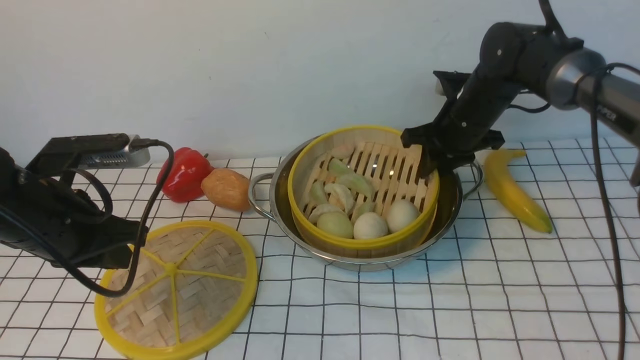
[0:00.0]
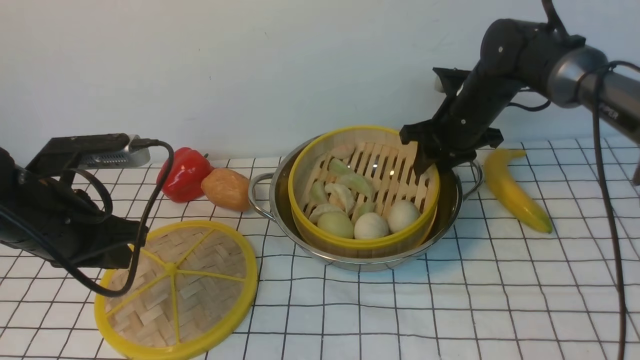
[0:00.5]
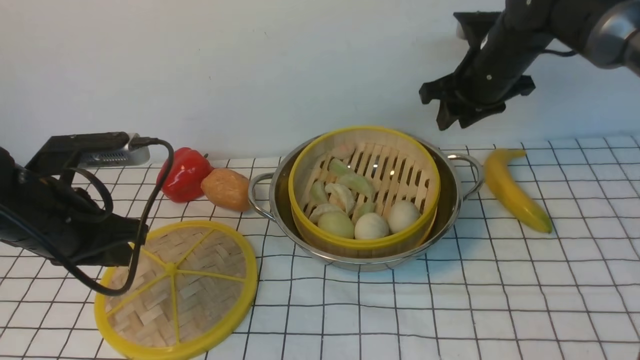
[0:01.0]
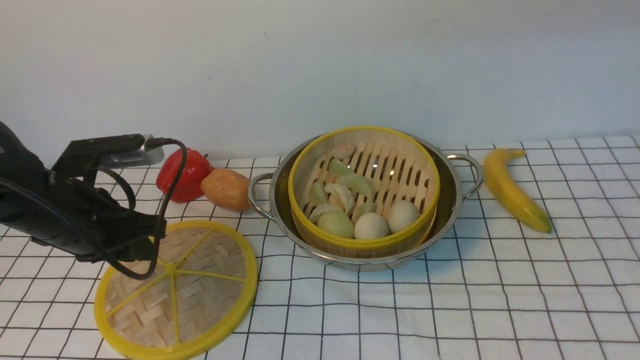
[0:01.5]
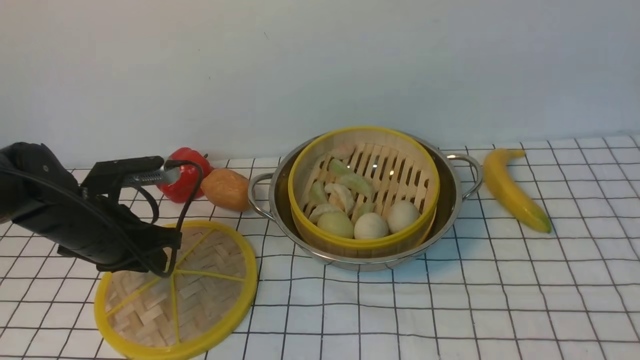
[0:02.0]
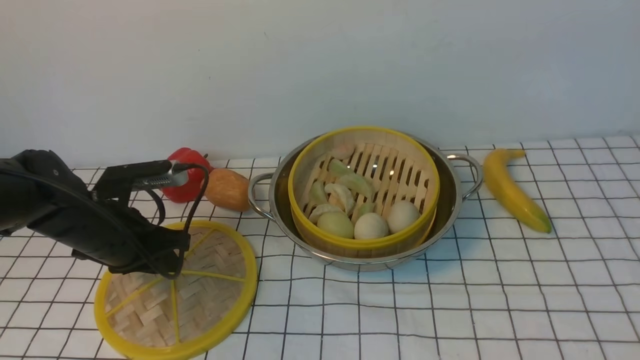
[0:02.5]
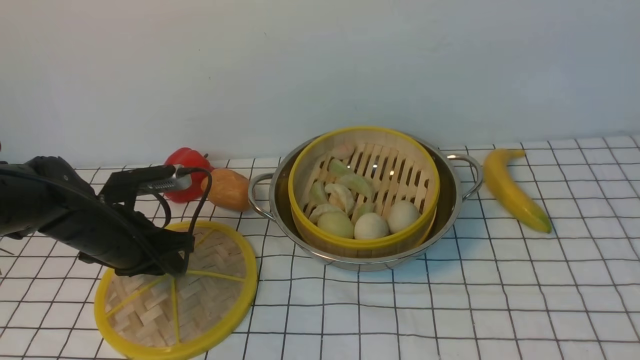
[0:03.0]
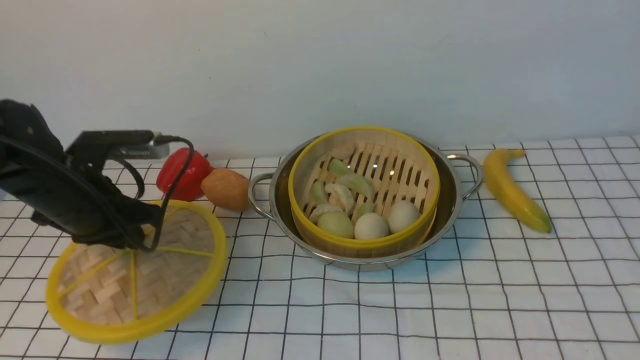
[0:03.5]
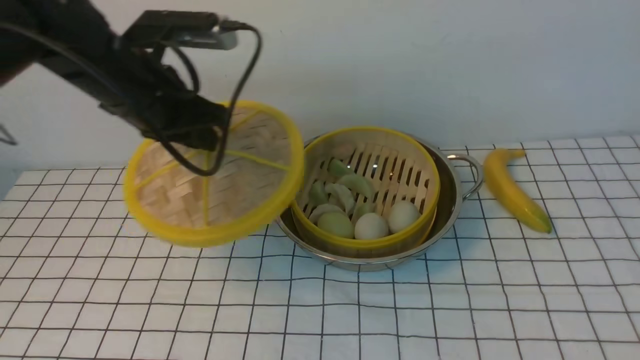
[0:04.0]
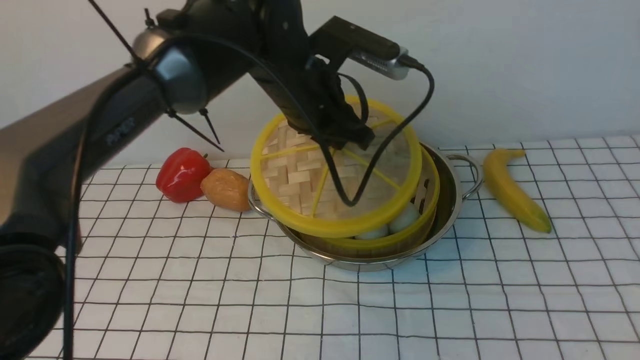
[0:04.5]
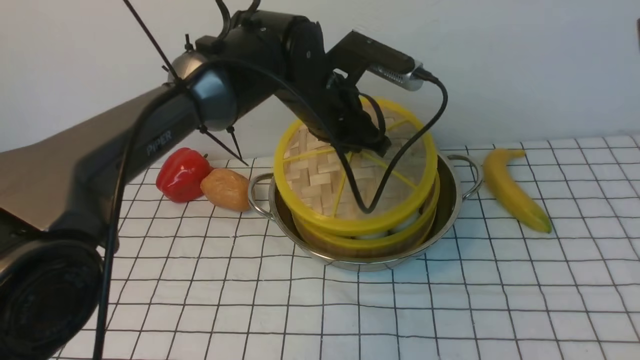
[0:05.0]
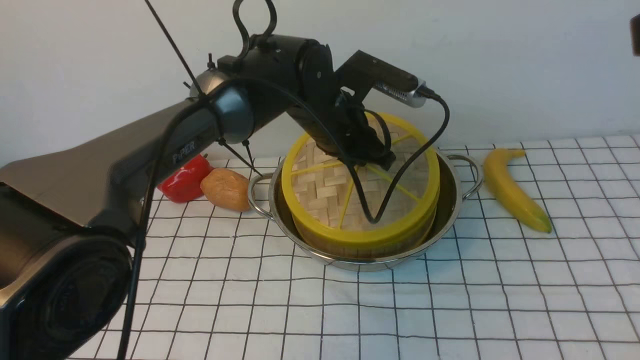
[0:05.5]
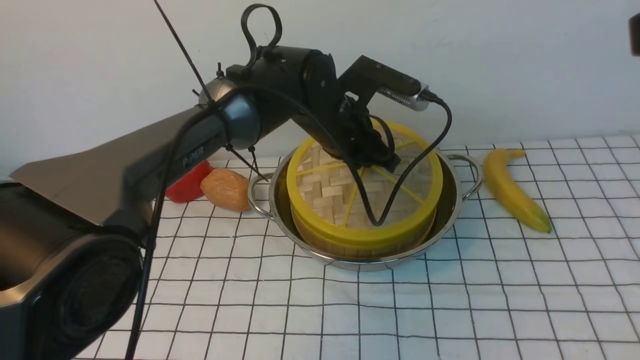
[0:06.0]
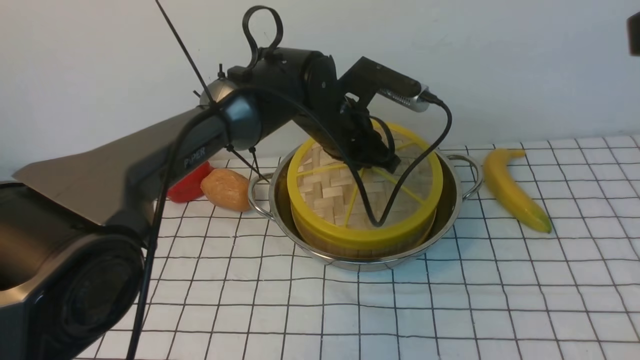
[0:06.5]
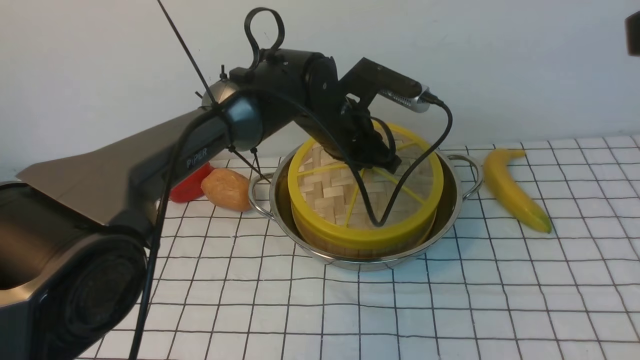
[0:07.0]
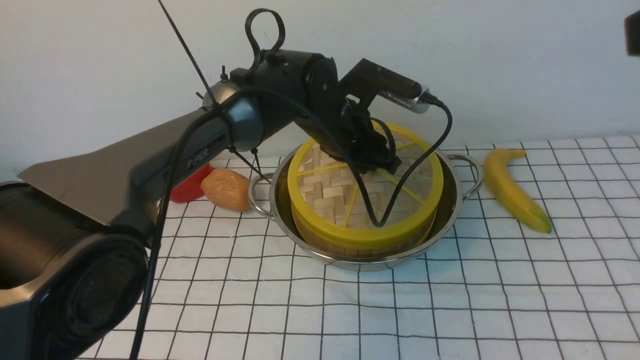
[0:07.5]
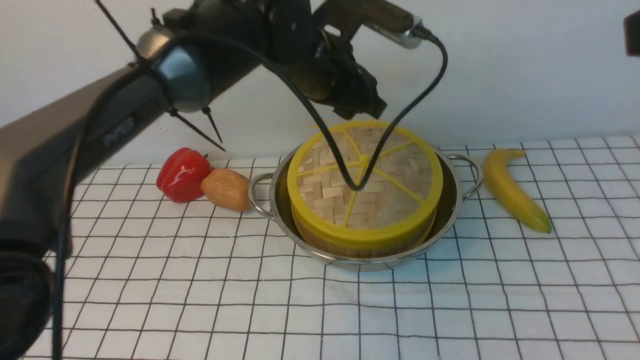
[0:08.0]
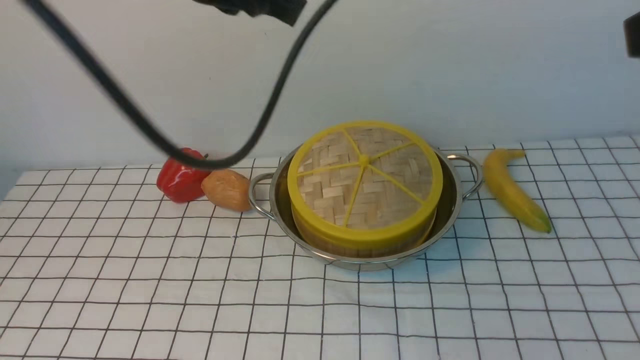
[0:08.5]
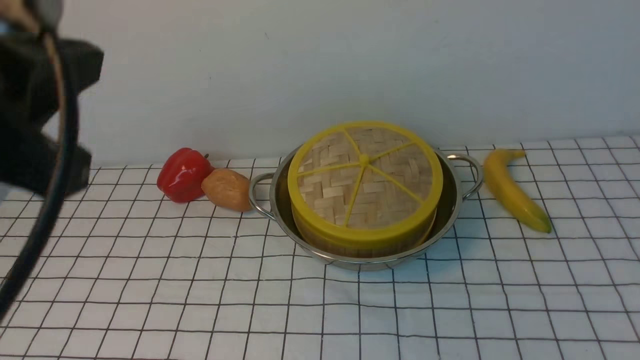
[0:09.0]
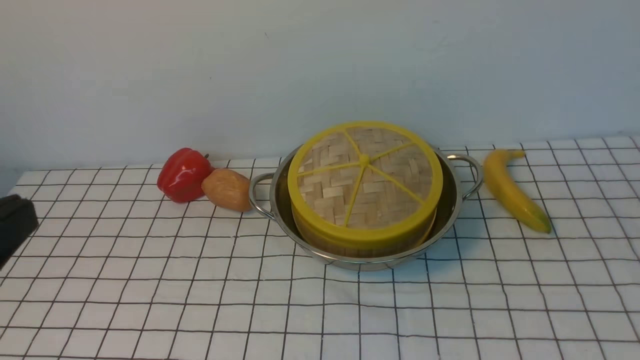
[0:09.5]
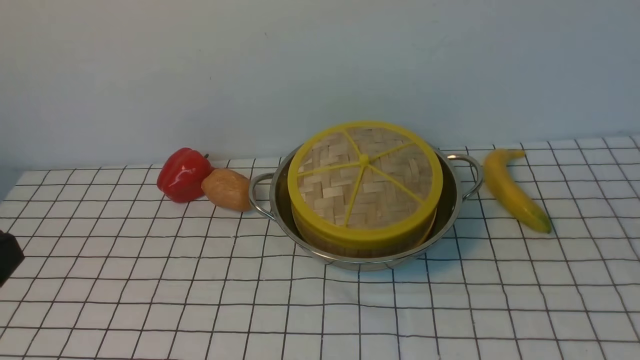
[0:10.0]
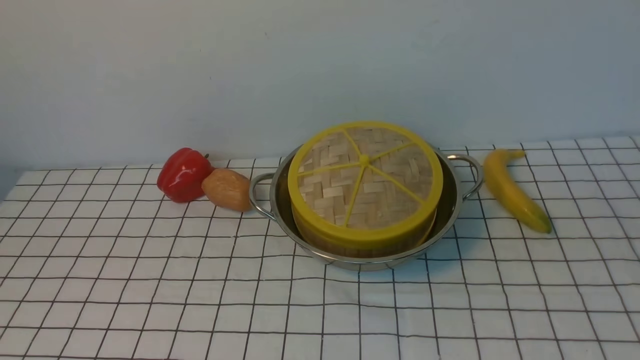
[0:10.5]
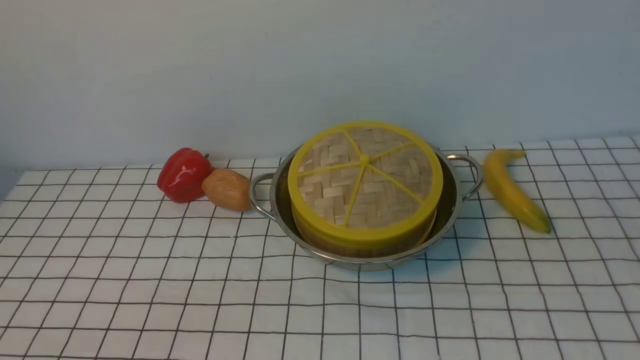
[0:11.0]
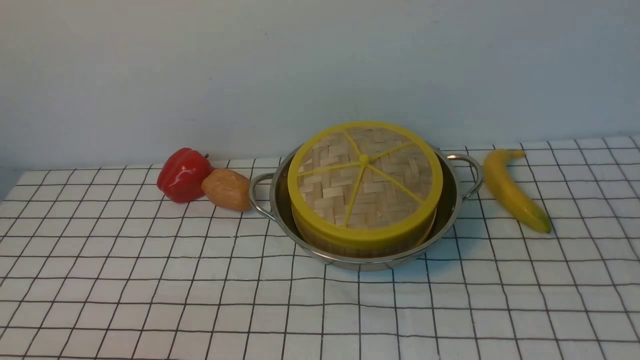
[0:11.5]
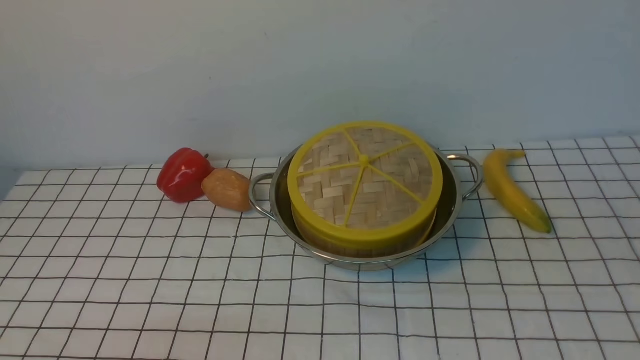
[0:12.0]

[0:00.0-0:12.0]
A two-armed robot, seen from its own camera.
Task of the whole recording: place the steamer in the pot on the white tablecloth, and put the lid on the steamer.
Step, 0:01.0 to 0:03.0: use the left arm to lift the lid of the steamer.
Step, 0:03.5 to 0:07.5: use the left arm to place the steamer lid on the steamer.
0:00.0 to 0:02.0: The left gripper moves downward, some 5 cm. Meanwhile the right gripper heads upward and backward, covering approximately 40 cm, and closes its fingers.
0:02.0 to 0:04.0: The left gripper shifts some 15 cm upward, to the right and forward.
0:04.0 to 0:06.0: The left gripper shifts approximately 20 cm to the right and downward.
0:06.0 to 0:08.0: The left gripper heads upward, covering roughly 10 cm, and opens.
0:08.0 to 0:10.0: The right gripper travels downward and backward by roughly 15 cm; the left gripper goes roughly 40 cm backward and to the left, and closes up.

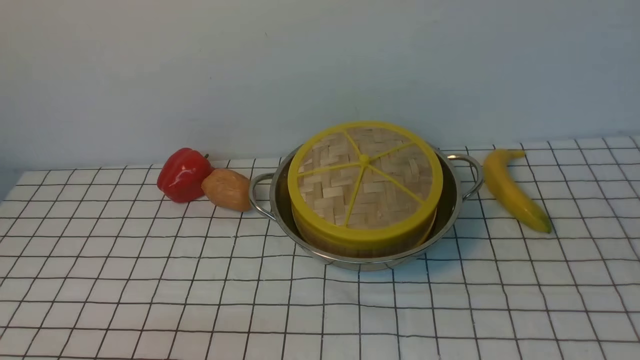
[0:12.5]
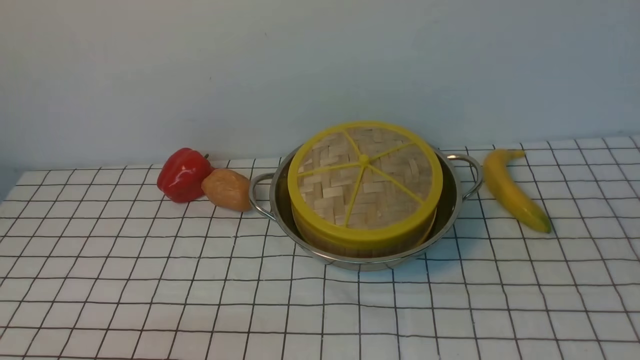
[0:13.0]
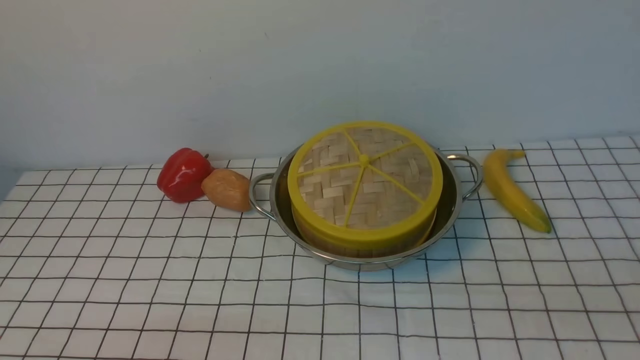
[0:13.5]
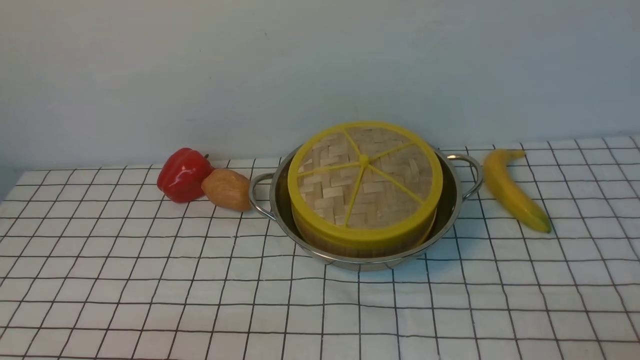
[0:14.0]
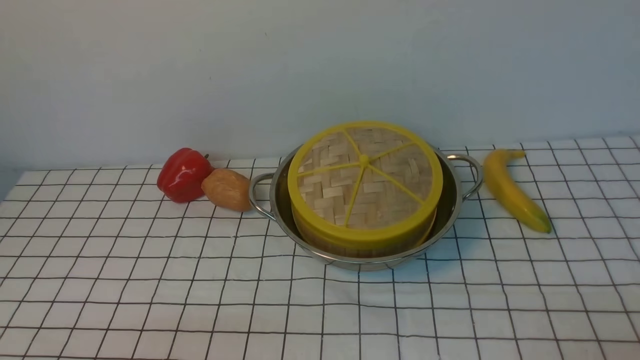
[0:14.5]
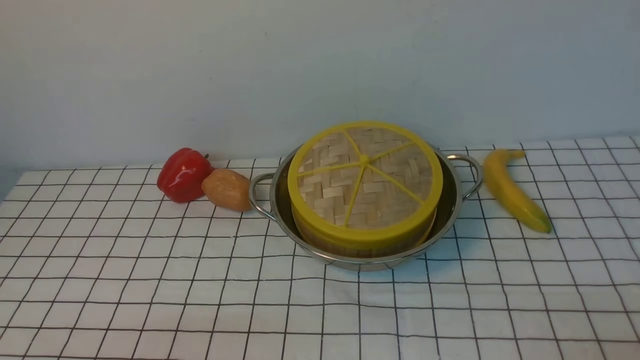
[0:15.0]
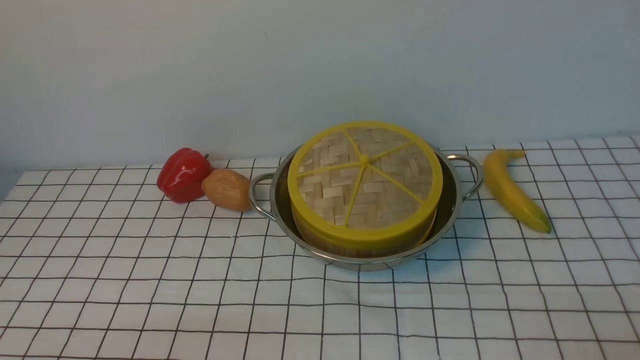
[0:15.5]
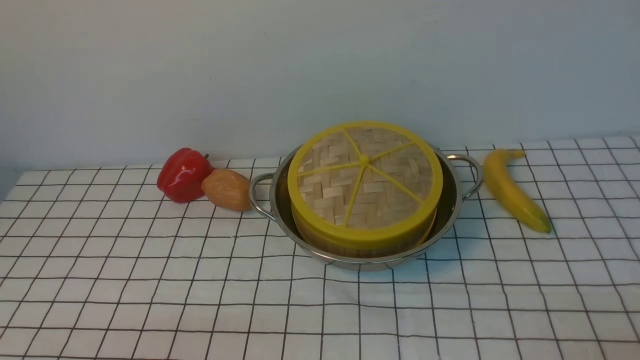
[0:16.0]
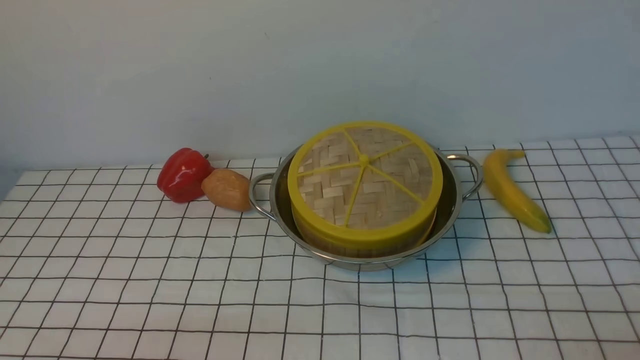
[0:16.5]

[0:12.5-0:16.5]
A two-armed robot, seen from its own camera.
Task of the whole recording: place the steamer in the pot on the white tablecloth, and put the lid on the steamer.
0:14.5 to 0:16.5: Neither gripper changes place.

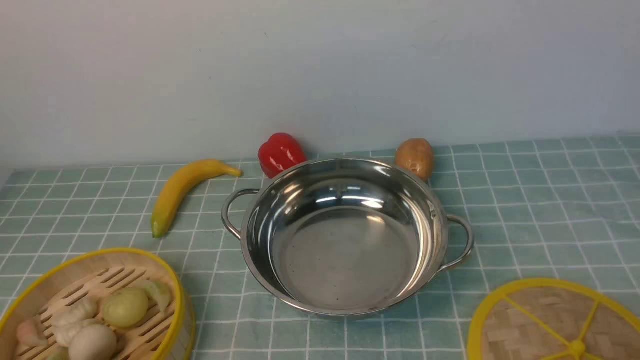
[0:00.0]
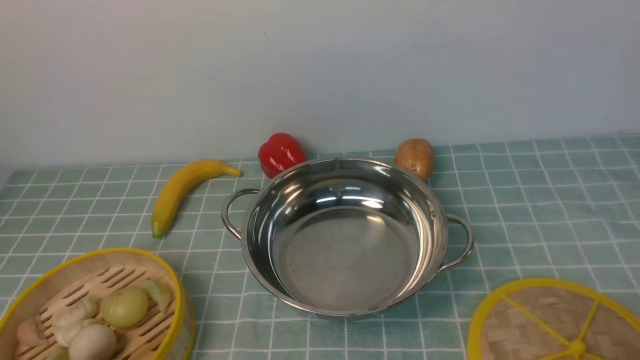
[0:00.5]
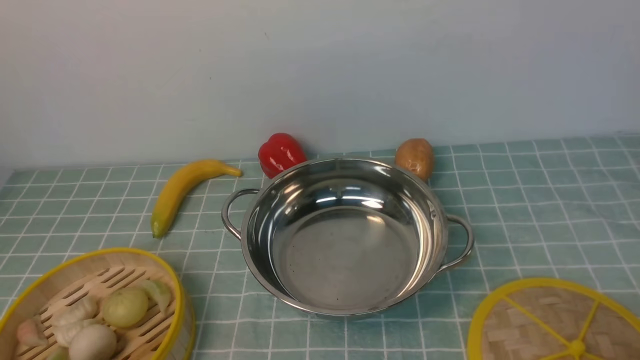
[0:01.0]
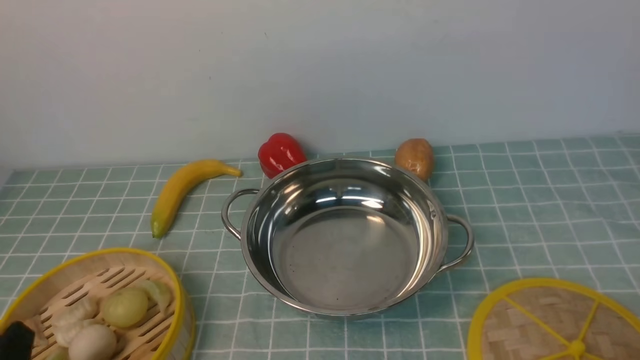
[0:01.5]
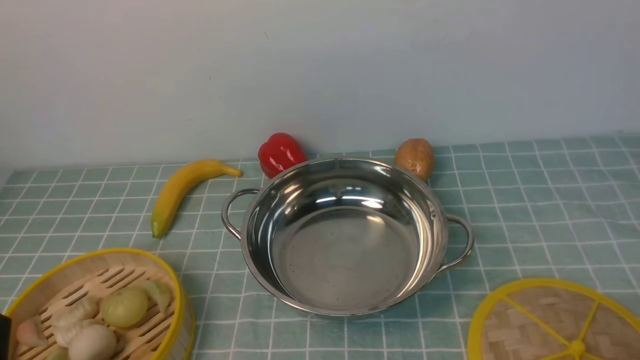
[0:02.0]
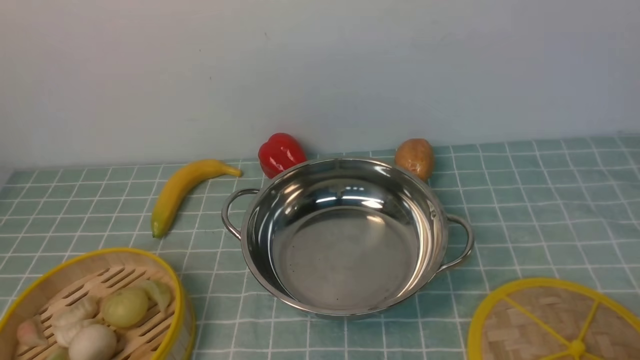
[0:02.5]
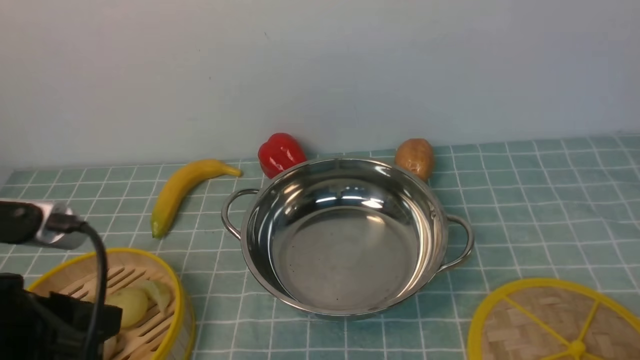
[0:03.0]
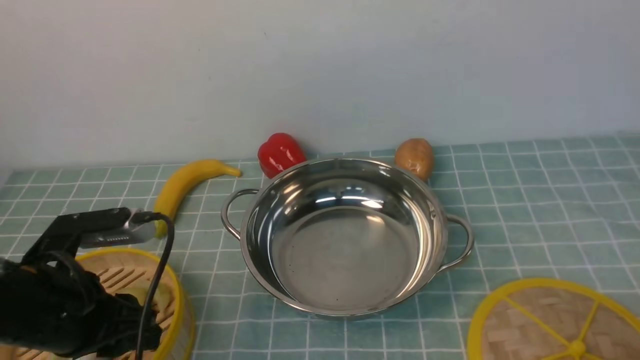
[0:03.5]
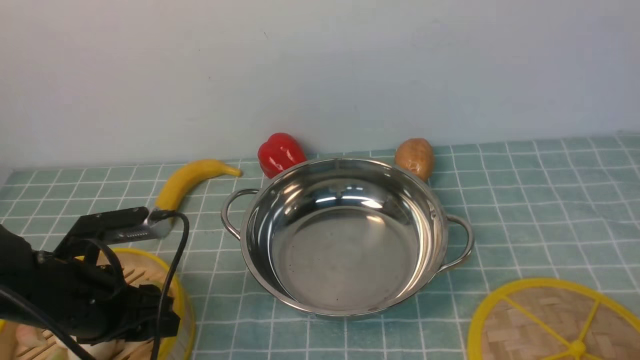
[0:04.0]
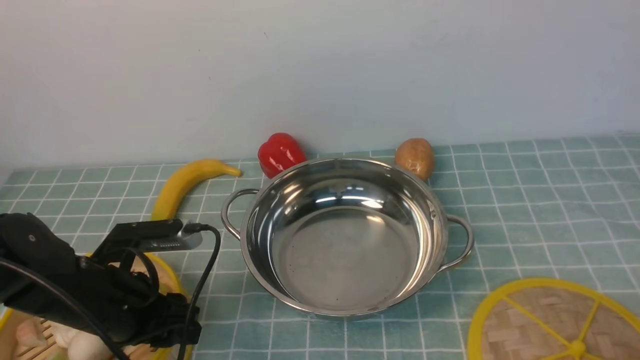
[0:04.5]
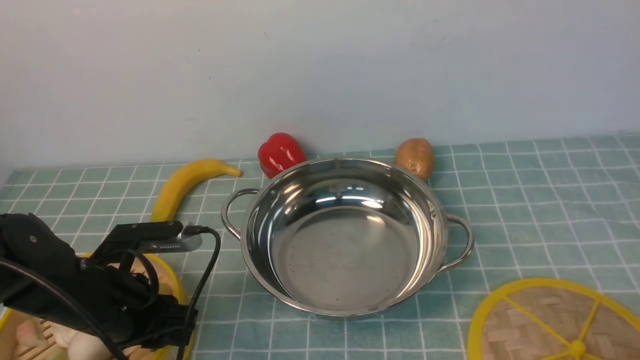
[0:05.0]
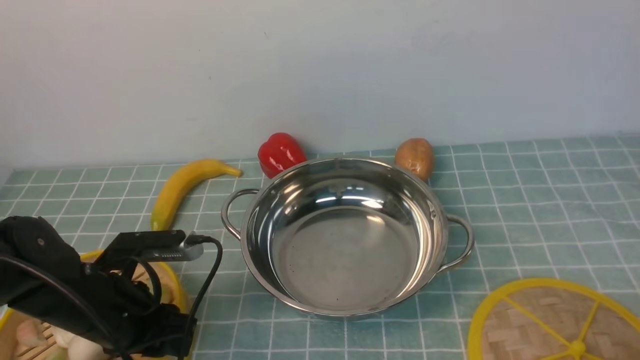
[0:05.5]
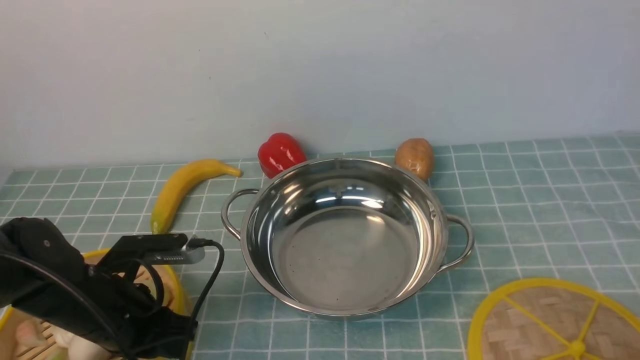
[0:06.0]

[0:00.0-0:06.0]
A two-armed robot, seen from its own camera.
Task of the whole recording: place the steamer in the pot on the blue tablecloth, and put the lid on the steamer.
0:02.0 to 0:04.0: The left gripper travels forward by roughly 20 cm, and opens.
0:04.0 to 0:06.0: The left gripper closes its fingers.
